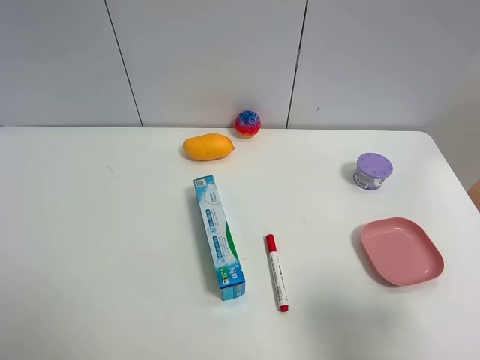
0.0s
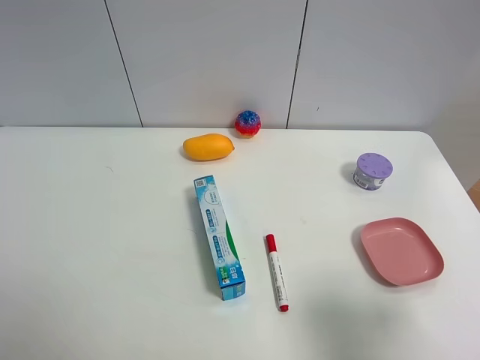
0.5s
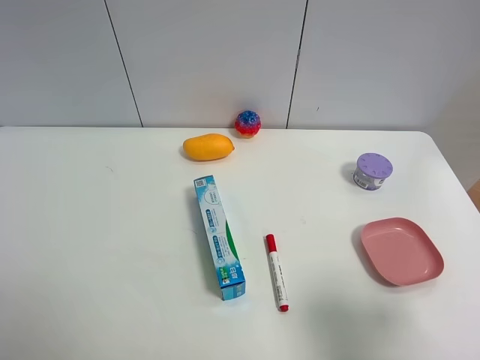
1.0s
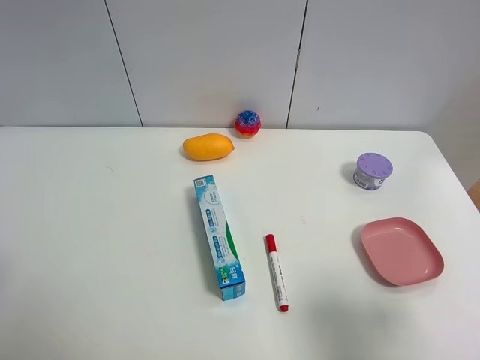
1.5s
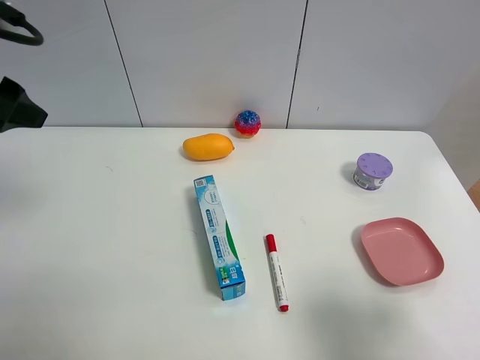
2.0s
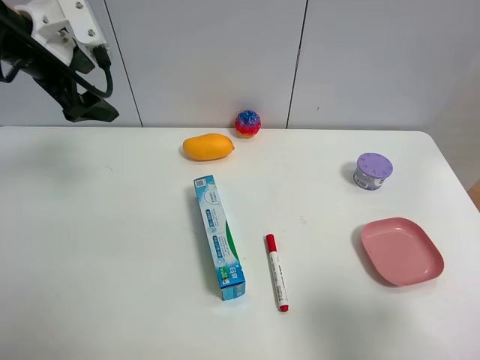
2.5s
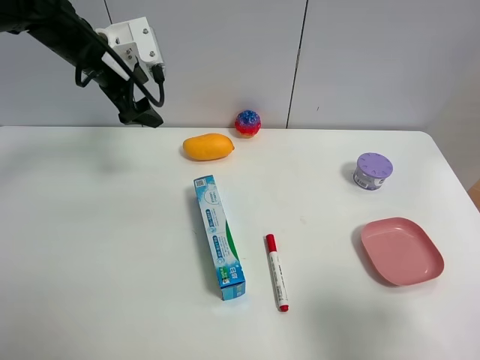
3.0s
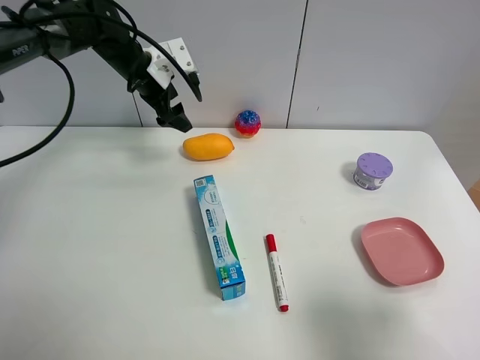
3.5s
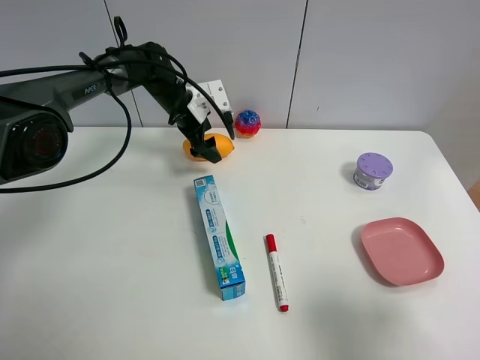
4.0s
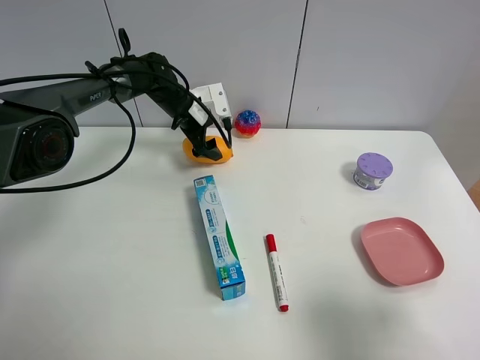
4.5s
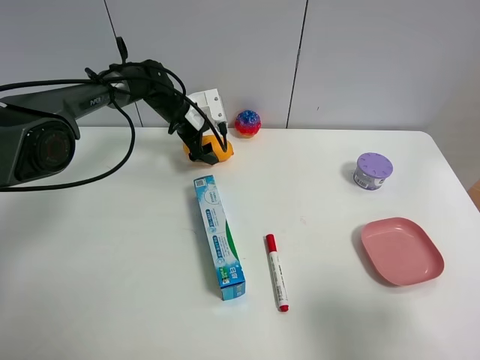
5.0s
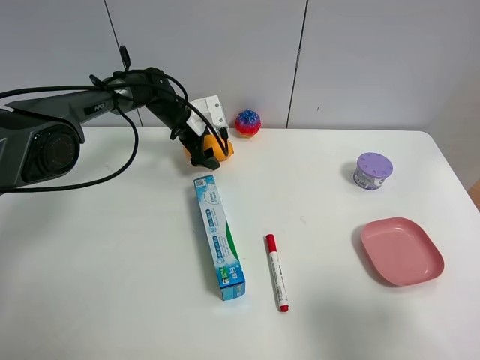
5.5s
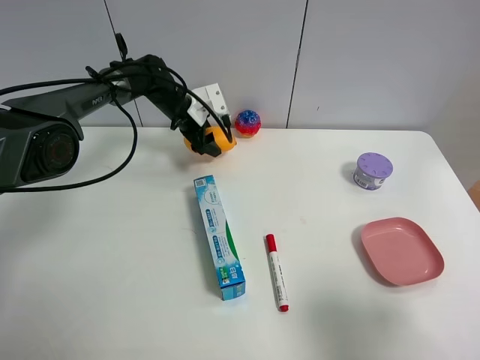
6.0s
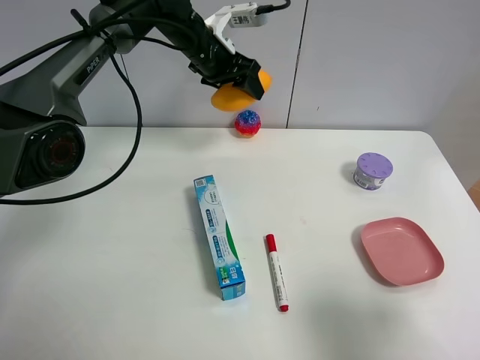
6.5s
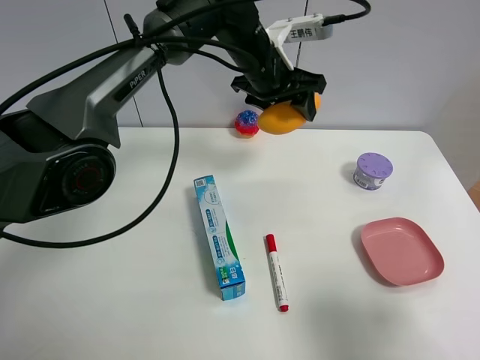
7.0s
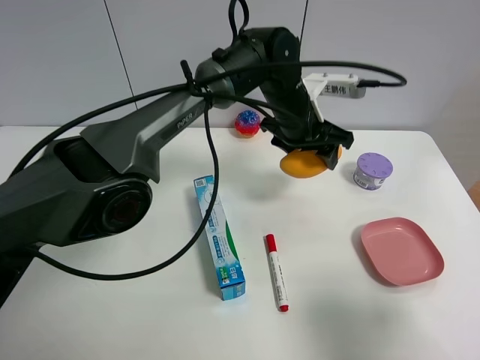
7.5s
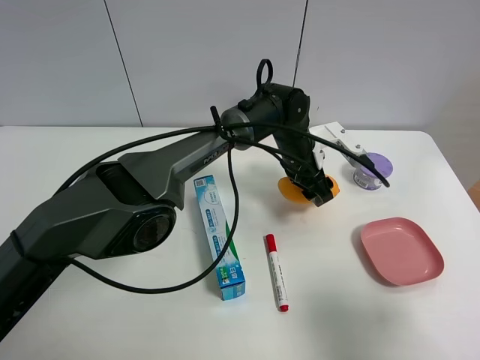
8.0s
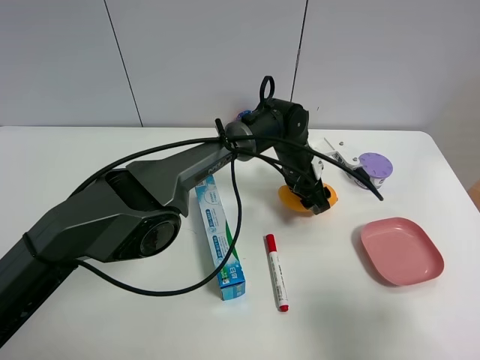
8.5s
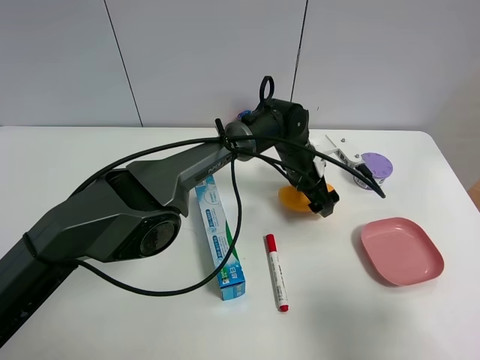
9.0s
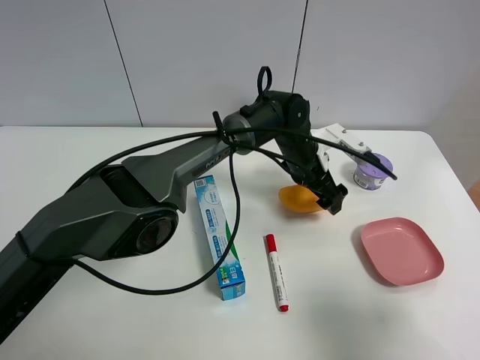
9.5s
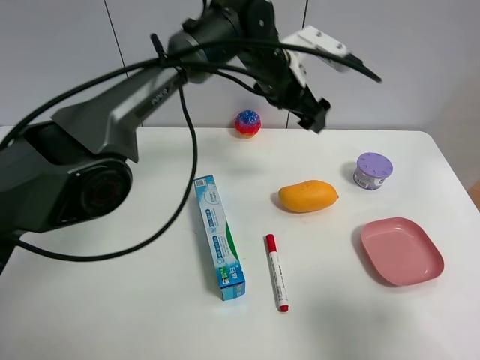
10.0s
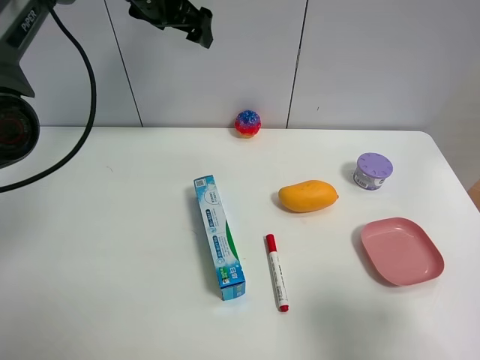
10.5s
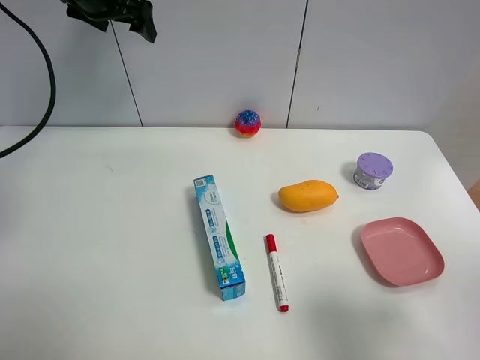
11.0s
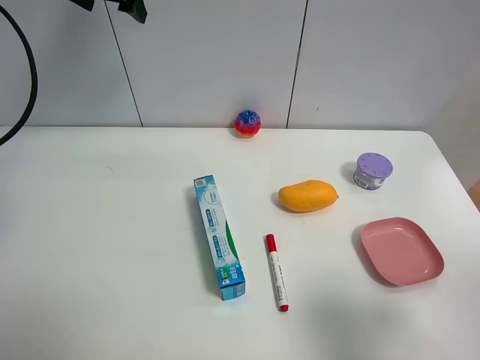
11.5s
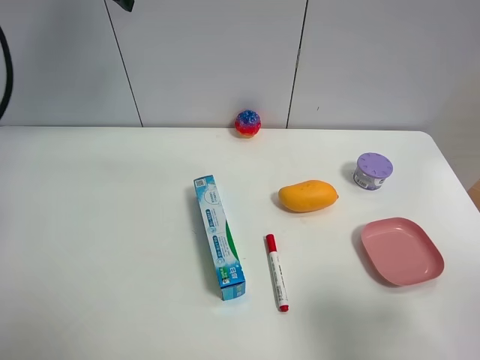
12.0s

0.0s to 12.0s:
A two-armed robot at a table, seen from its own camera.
Task of the whole recording: the gripper move the object.
Step, 0.0s to 5.5s: Grasp the mango with the left gripper.
Step, 6.0s to 8.5s: Place the mango on the table with the left gripper.
0.0s to 2.0s: The left gripper is displaced forward by approximately 25 cm.
2.0s to 4.0s: The left gripper travels forward, downward and to the right by about 40 cm.
4.0s to 6.0s: The left gripper closes up.
6.0s to 8.0s: The left gripper travels to the right and backward by some 25 cm.
8.0s to 10.0s: The left gripper goes roughly 15 cm upward and to the left, and opens.
10.0s to 12.0s: The left gripper travels to the left and upward by some 30 cm.

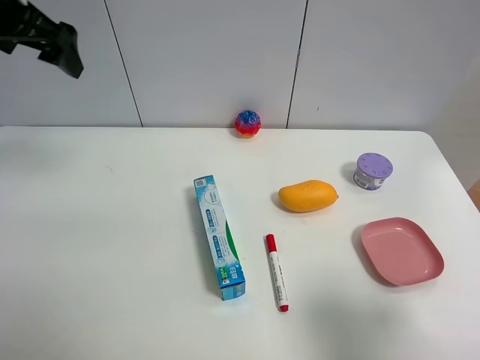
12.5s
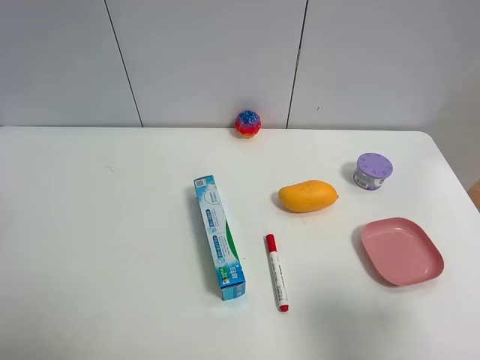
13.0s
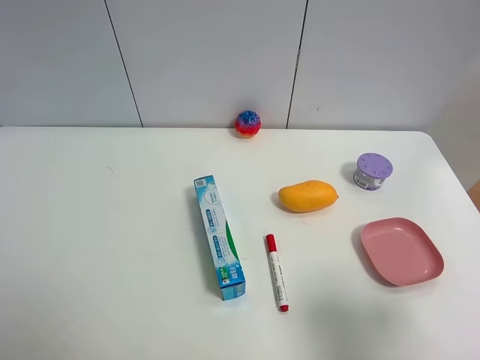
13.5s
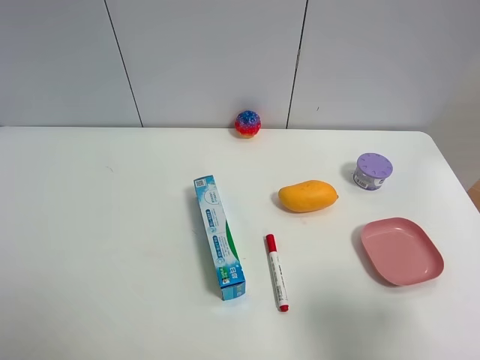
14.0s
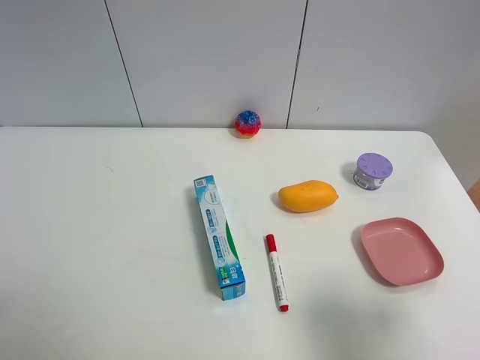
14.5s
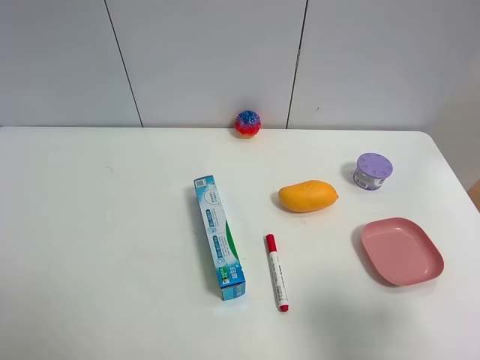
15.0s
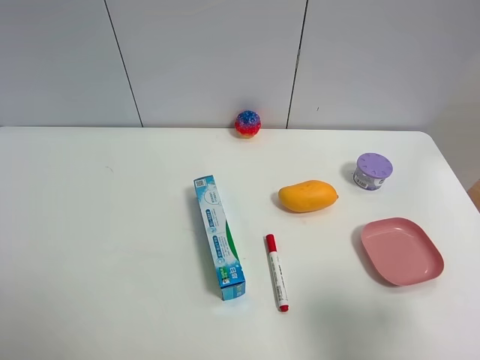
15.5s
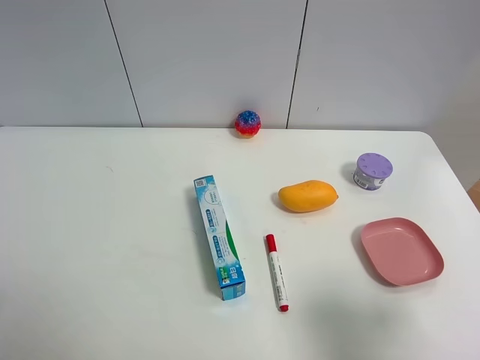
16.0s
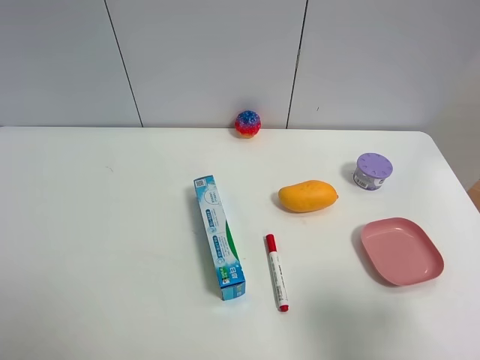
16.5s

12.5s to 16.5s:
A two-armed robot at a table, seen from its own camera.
Task of the whole recording: the gripper move the object.
12.5s to 14.5s: The left gripper heads backward, covering some 30 cm.

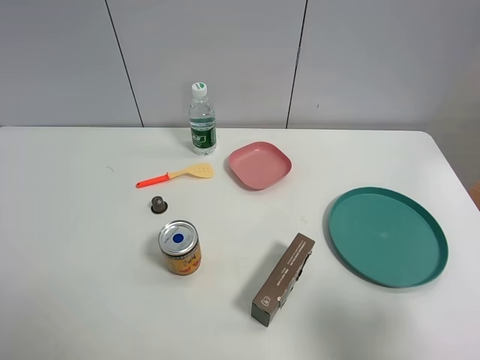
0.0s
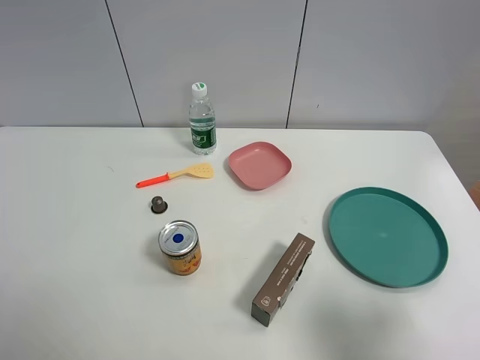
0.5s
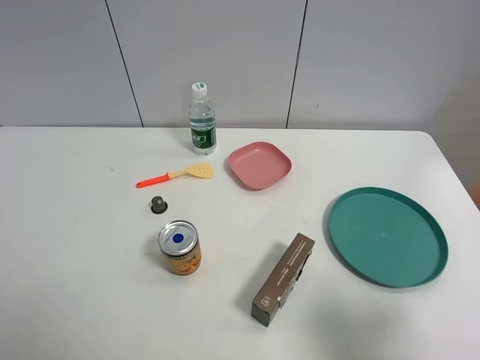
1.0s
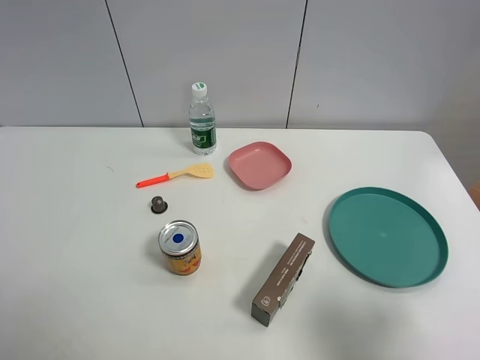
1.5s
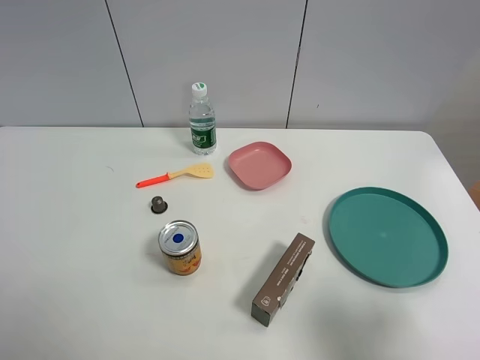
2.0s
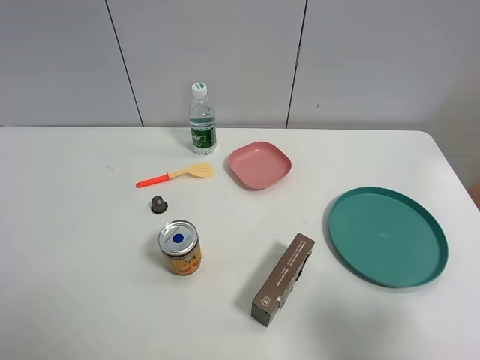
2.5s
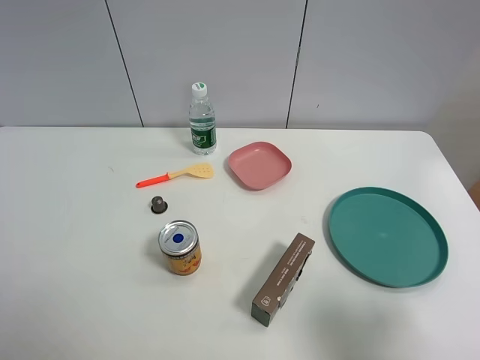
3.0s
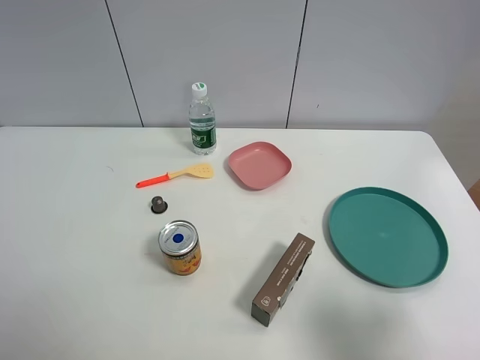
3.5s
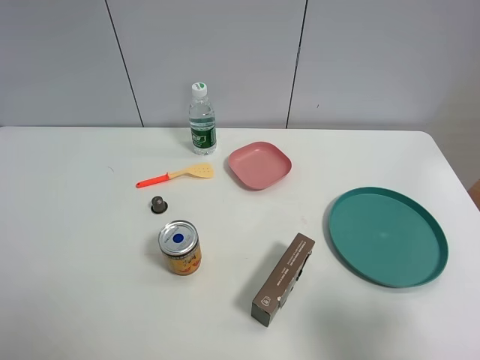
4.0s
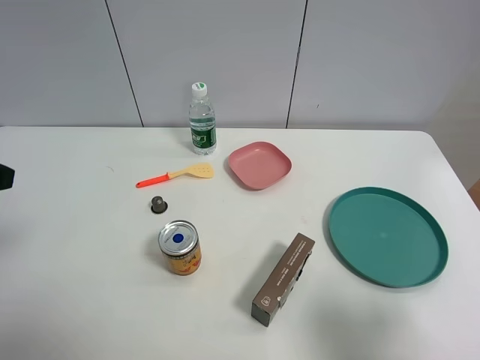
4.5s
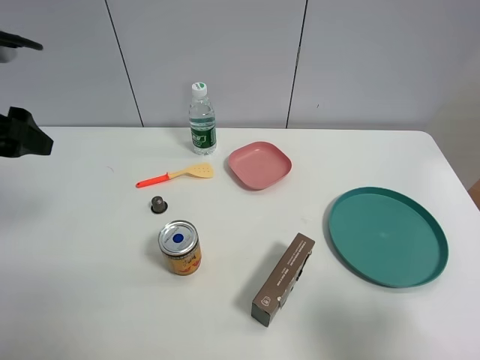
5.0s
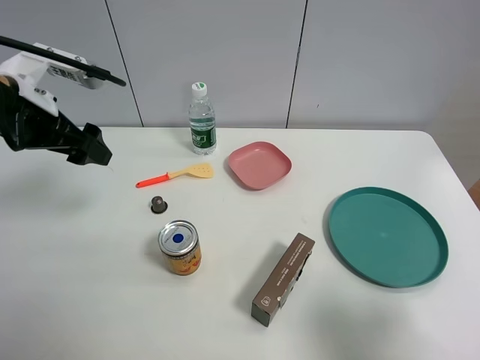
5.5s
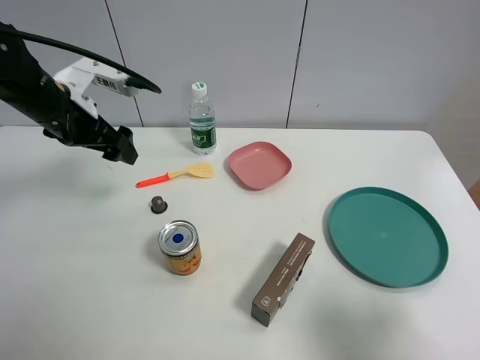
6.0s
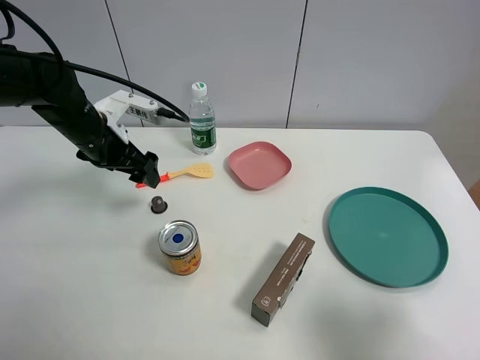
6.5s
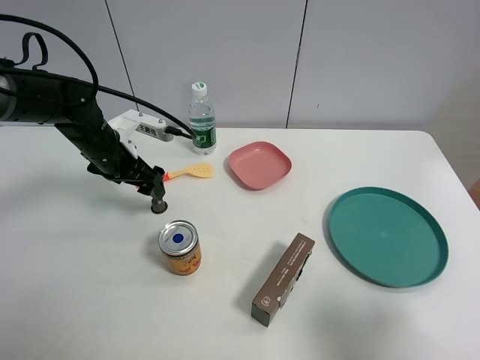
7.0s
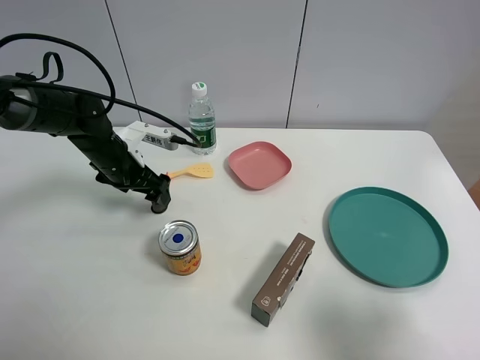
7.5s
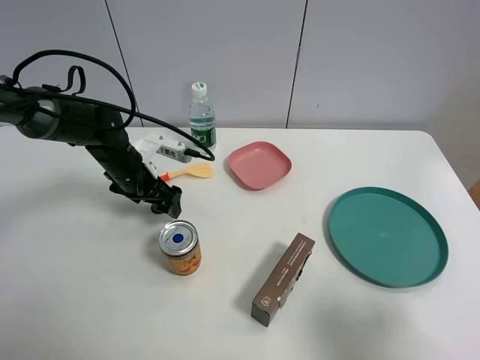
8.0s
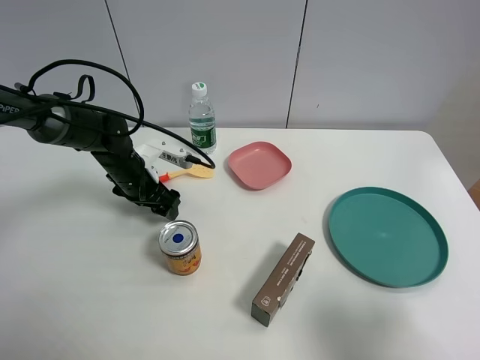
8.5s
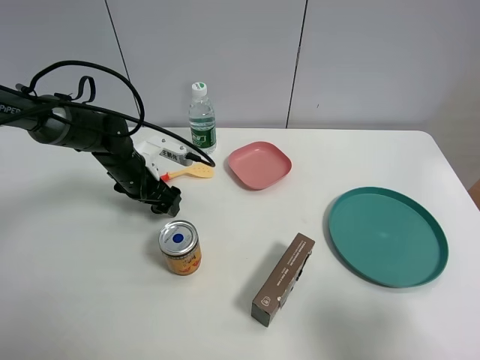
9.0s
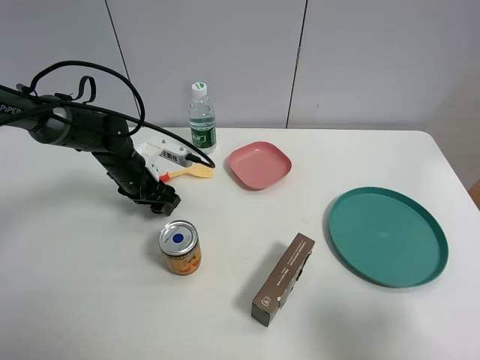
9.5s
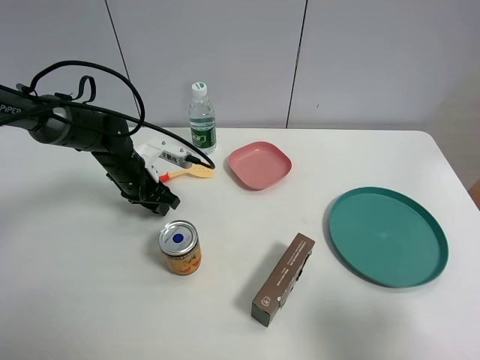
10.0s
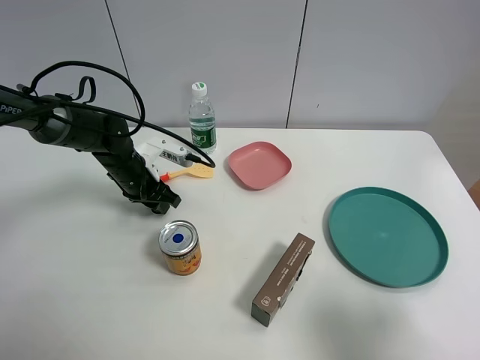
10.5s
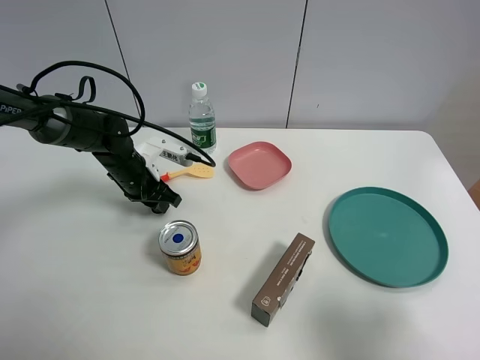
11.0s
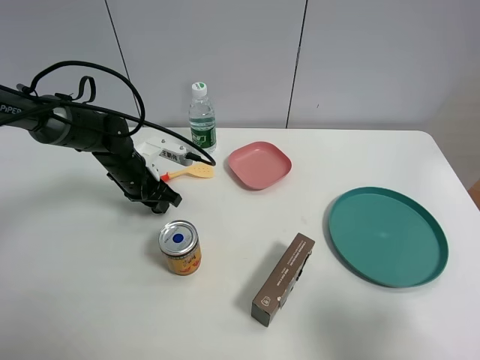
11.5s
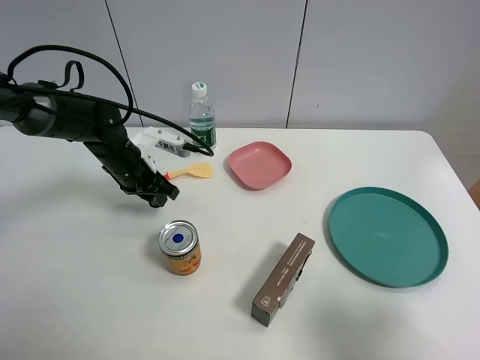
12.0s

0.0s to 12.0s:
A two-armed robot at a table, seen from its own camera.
Task of the whole recording: the gripper move the object.
Step, 0.0s to 10.5s: Grasp the coffee capsule with the left gripper.
0.0s to 2.0s: The two grippers keep their place.
4.0s to 6.0s: The left gripper heads forward, covering about 30 cm.
6.0s to 8.0s: The left gripper moves downward and to the right, approximately 15 cm.
8.0s to 10.0s: The left gripper closes up.
10.0s to 12.0s: The grippers move only a little.
